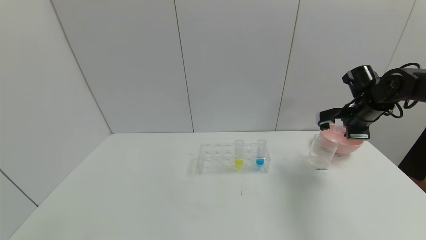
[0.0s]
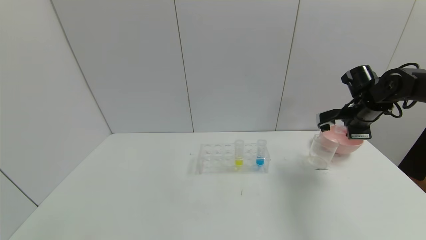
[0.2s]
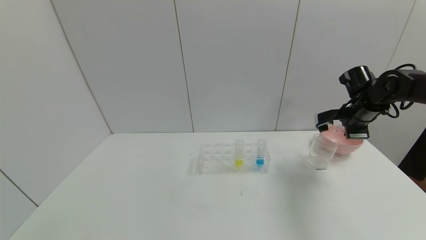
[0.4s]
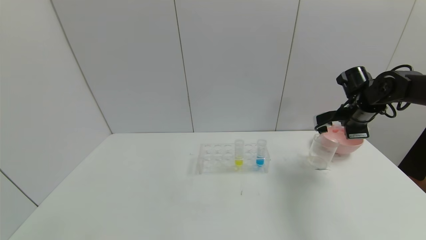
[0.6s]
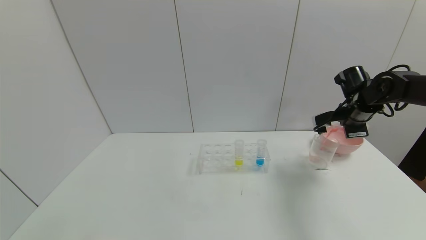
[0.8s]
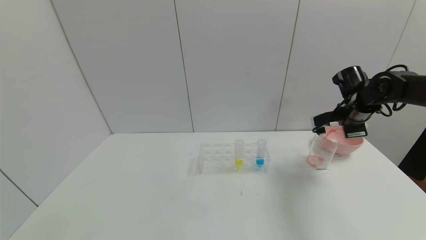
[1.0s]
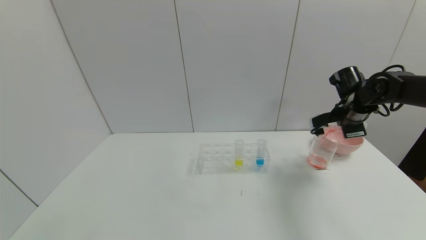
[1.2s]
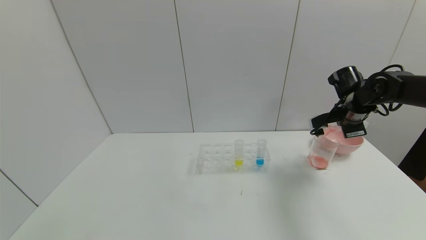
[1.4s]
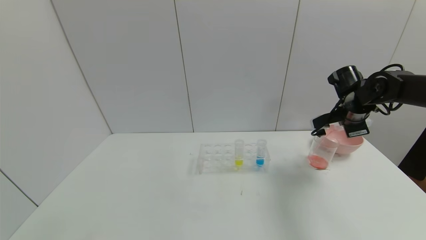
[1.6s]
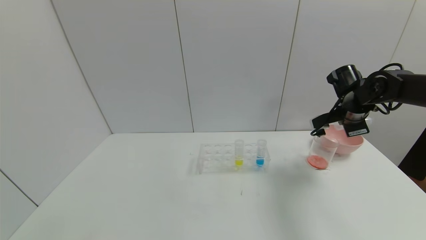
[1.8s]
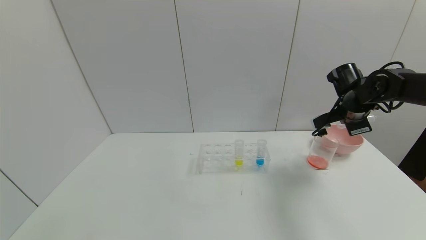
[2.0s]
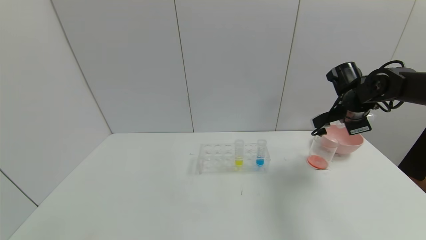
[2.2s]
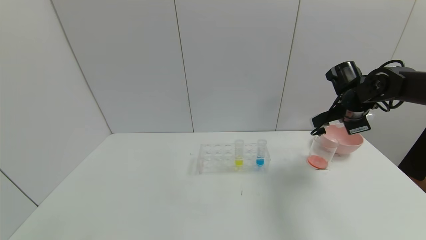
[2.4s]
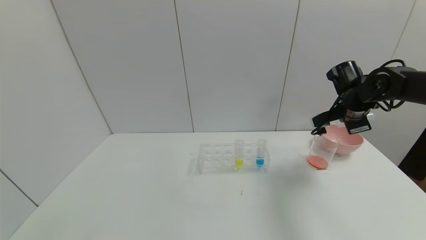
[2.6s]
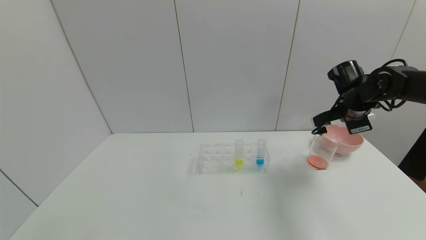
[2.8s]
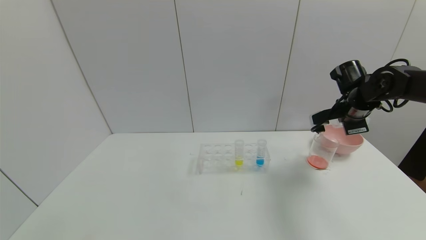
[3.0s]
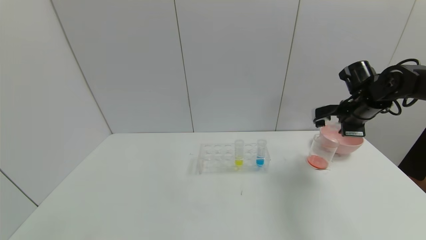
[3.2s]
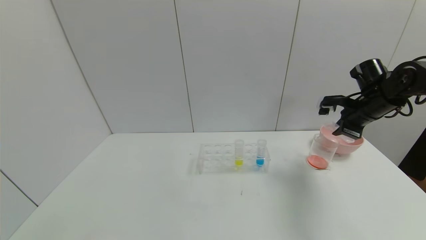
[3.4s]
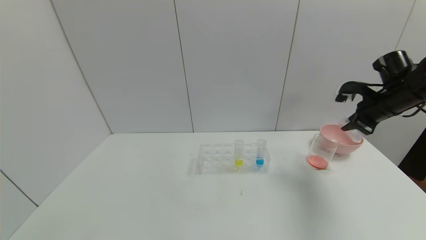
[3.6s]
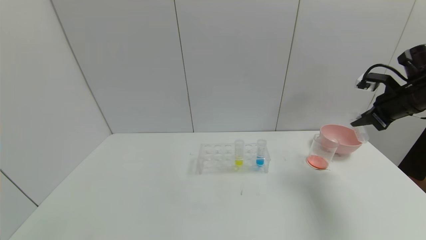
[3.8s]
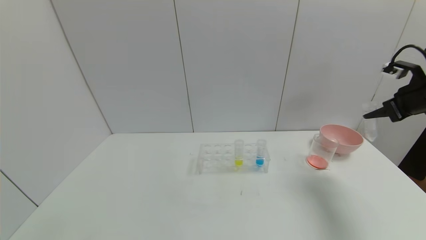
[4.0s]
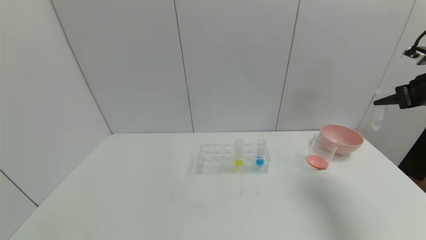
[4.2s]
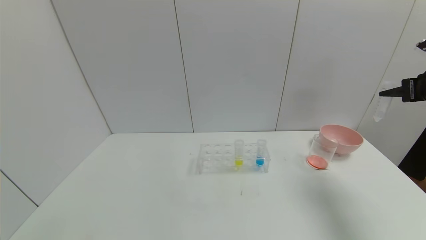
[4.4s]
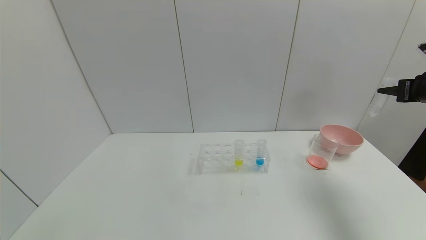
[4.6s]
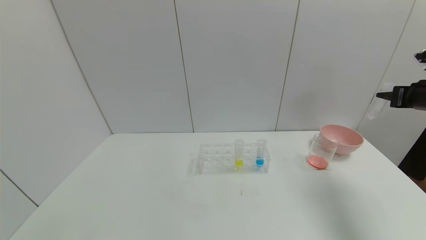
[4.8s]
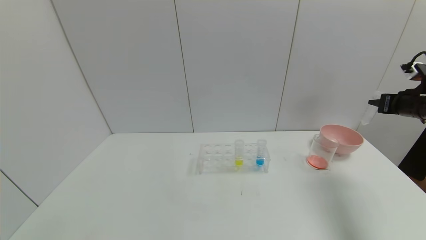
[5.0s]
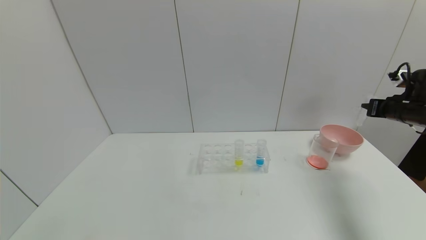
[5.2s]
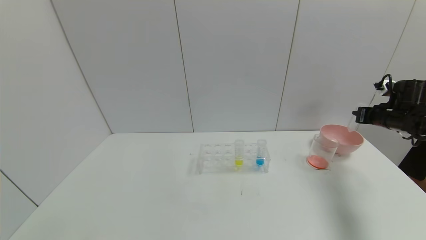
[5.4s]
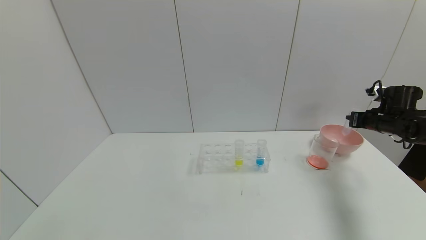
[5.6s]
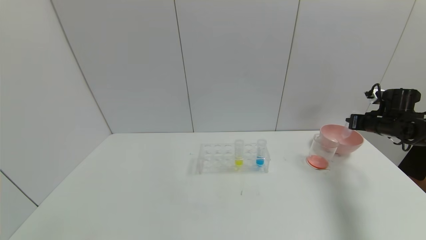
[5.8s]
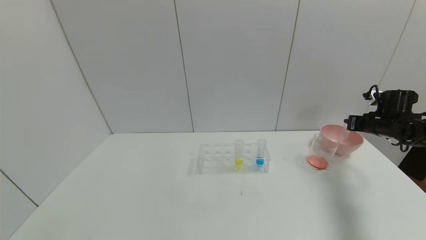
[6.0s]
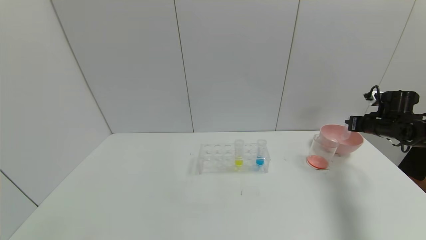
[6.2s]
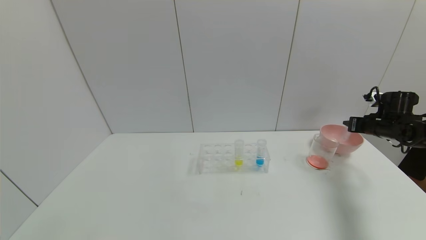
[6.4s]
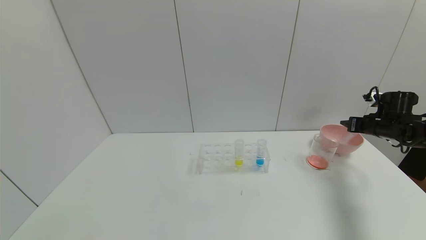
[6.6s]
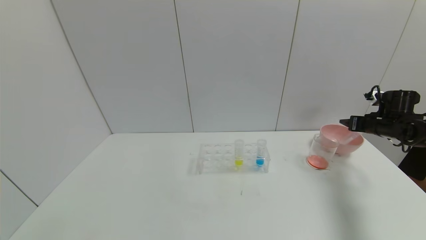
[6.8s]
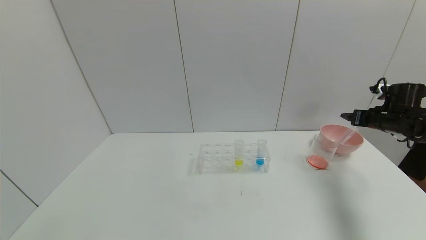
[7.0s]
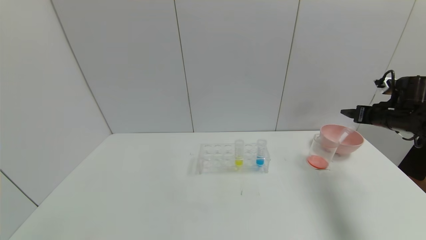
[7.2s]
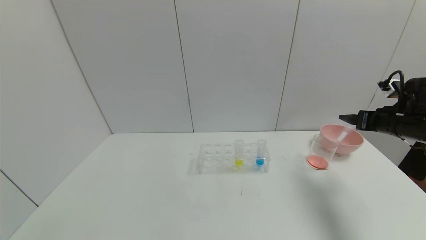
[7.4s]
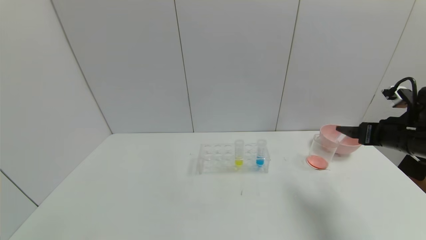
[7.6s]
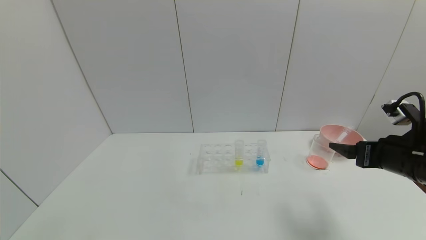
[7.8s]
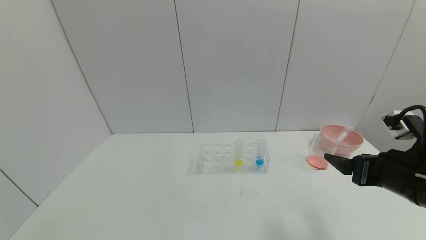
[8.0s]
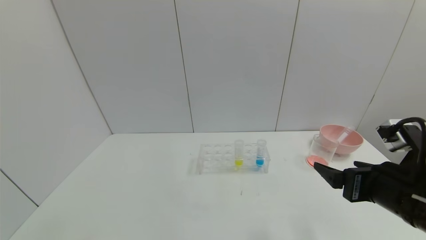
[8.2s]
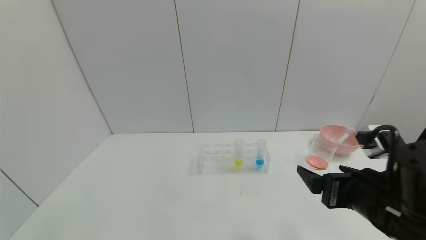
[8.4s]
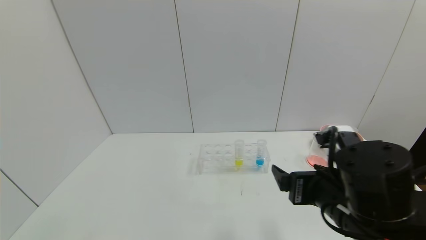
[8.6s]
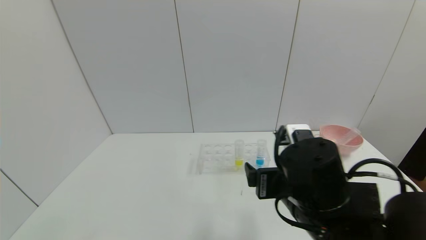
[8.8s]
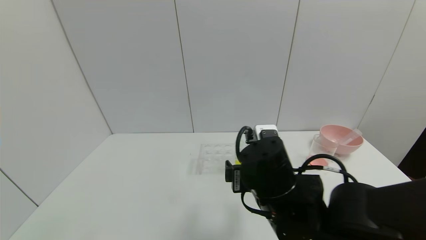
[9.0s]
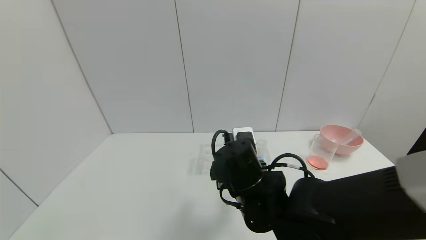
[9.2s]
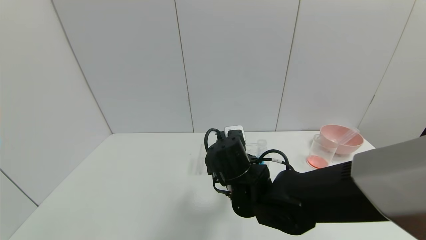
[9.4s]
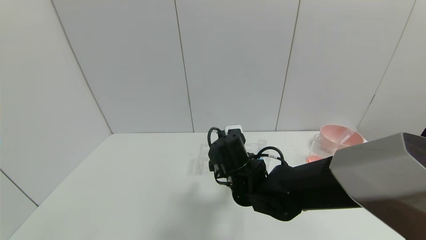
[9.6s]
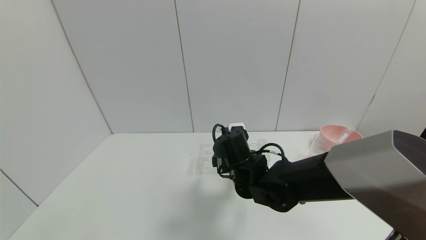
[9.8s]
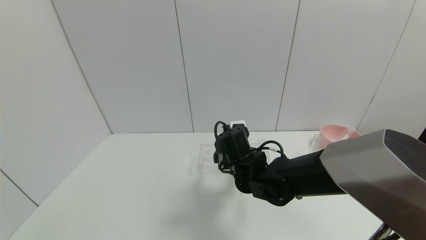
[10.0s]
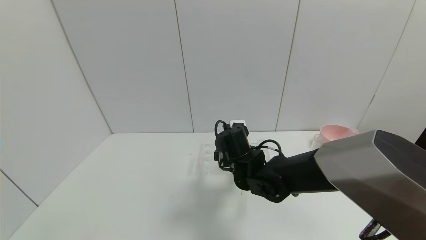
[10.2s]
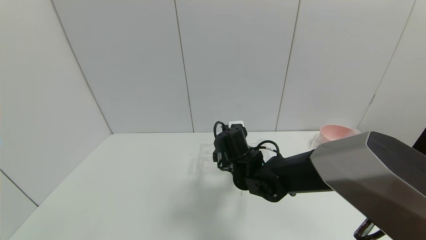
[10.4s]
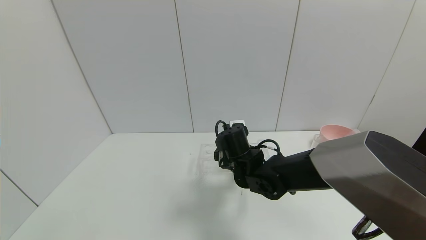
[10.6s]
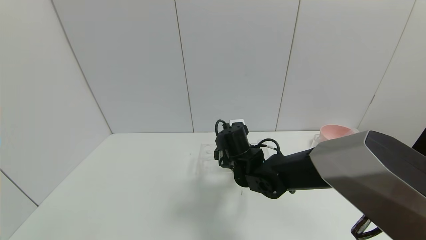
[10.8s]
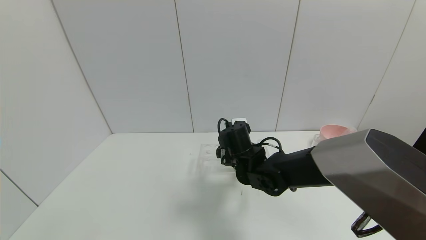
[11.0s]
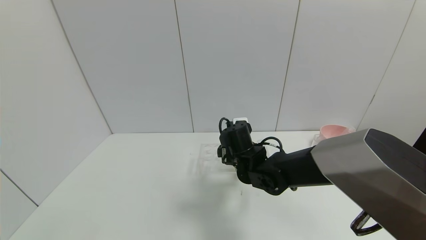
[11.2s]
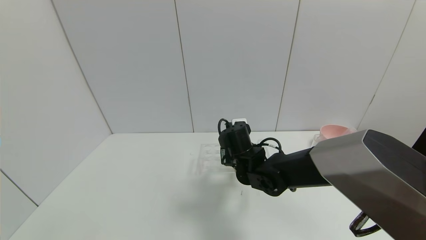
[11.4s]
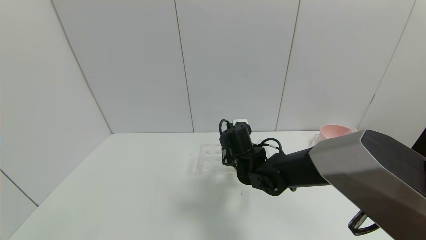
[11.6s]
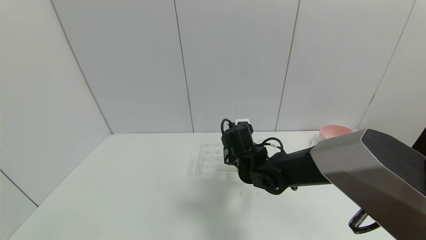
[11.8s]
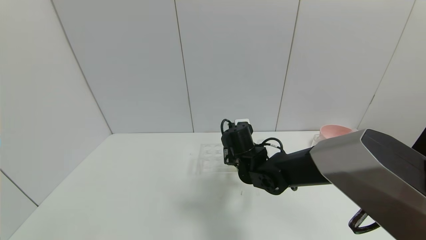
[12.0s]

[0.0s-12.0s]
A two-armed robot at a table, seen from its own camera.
Task of the whole recording: pick up the test tube with yellow pigment and the test tube with red pigment by grippers and pour them into the beaker.
Step, 0.0s to 5.2s: Pour the red reagent into the graduated cylinder with right gripper.
Step, 5.4s to 8.4s: Place the test tube into the bowl with right gripper.
0.0s to 1.6s: The grippers make only small movements.
1.6s to 3.0s: The grippers make only small movements.
3.0s to 4.4s: The right gripper travels to the right, backward and upward by some 15 cm.
4.4s to 6.0s: The right gripper is displaced downward and forward by roughly 20 cm.
6.0s to 7.6s: The right gripper goes about 15 cm backward and to the left, and opens its fingers.
7.6s to 9.0s: The right gripper travels to the left by some 30 cm.
9.0s to 10.4s: The right gripper shifts about 15 cm forward and downward.
10.4s to 12.0s: The right gripper closes.

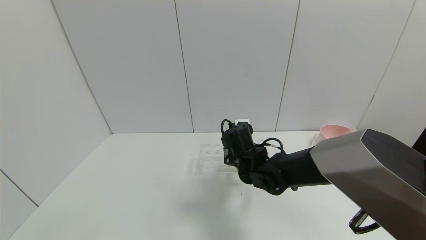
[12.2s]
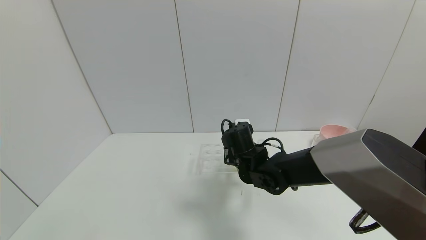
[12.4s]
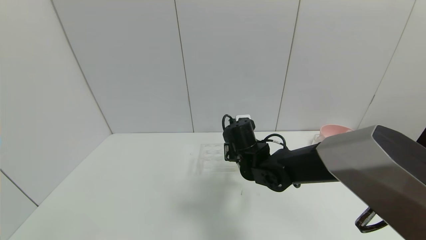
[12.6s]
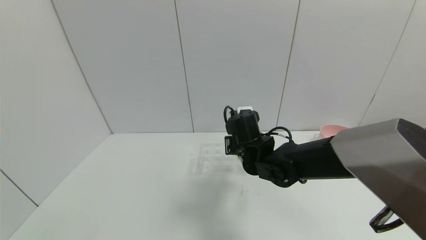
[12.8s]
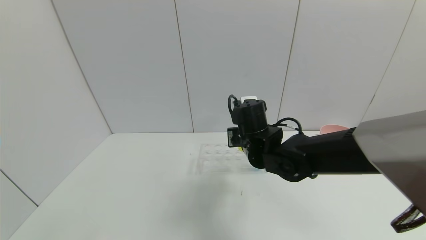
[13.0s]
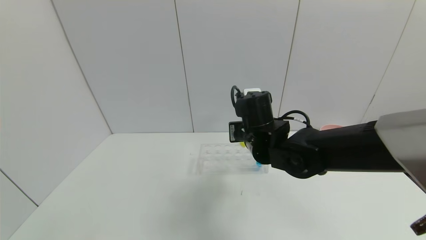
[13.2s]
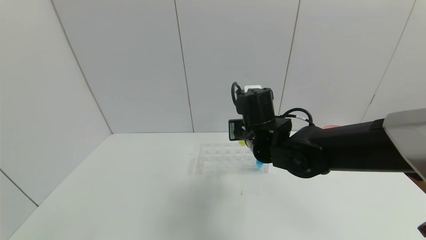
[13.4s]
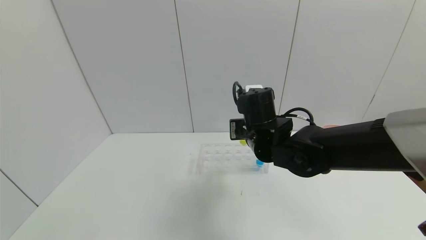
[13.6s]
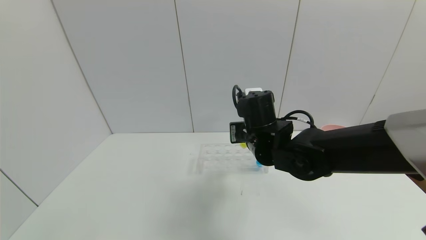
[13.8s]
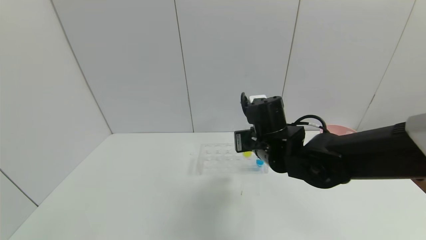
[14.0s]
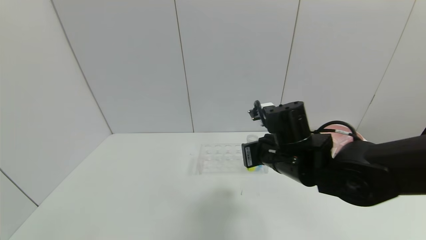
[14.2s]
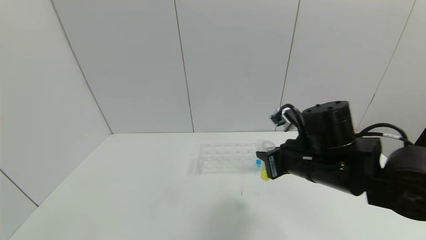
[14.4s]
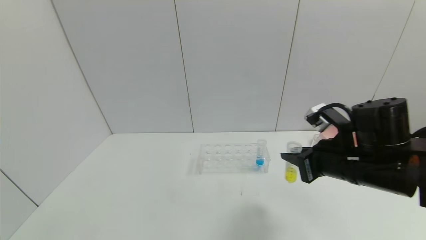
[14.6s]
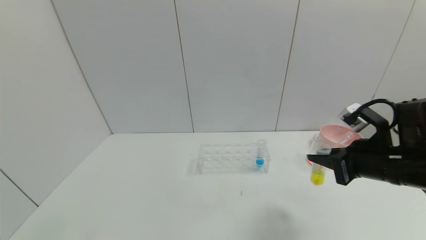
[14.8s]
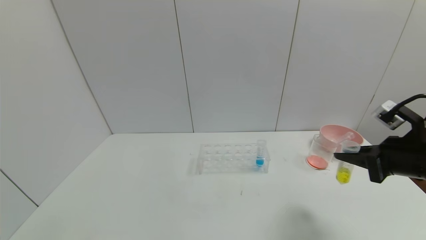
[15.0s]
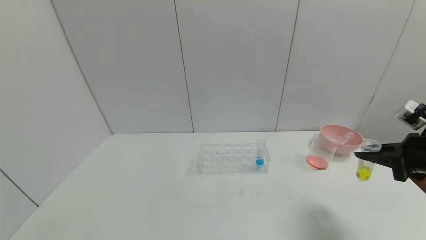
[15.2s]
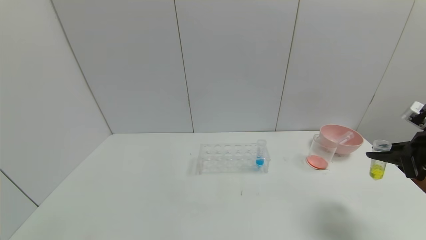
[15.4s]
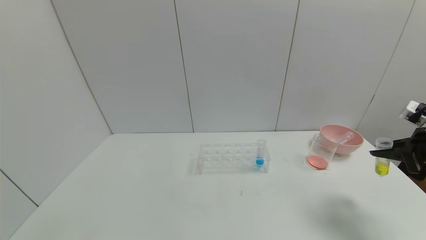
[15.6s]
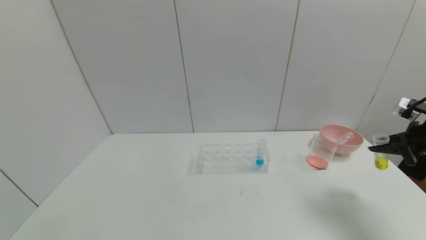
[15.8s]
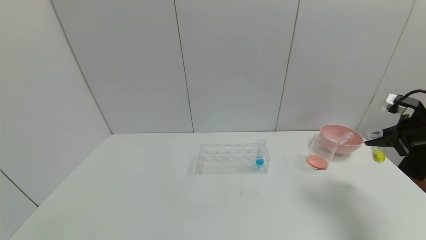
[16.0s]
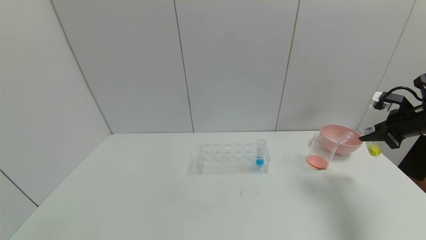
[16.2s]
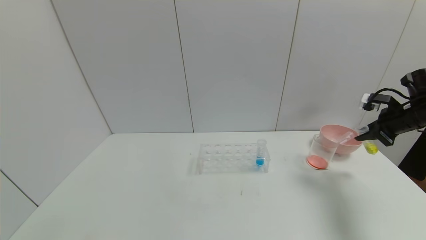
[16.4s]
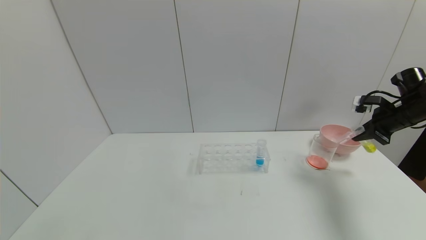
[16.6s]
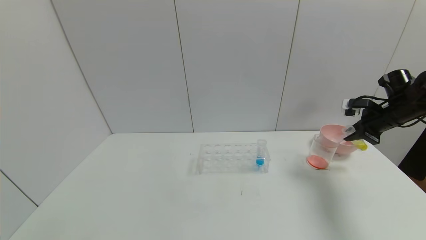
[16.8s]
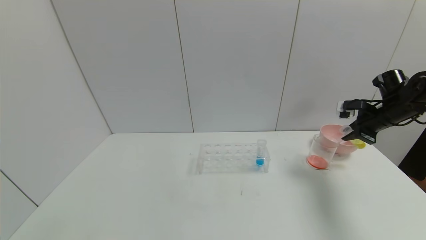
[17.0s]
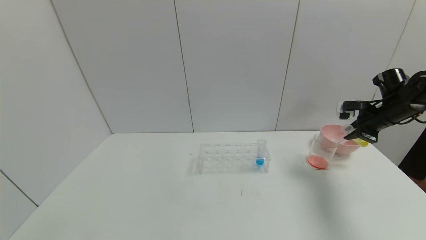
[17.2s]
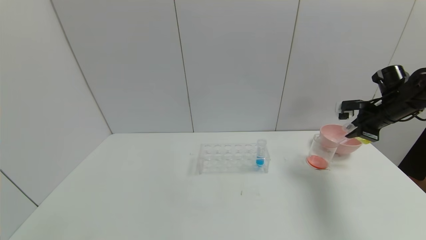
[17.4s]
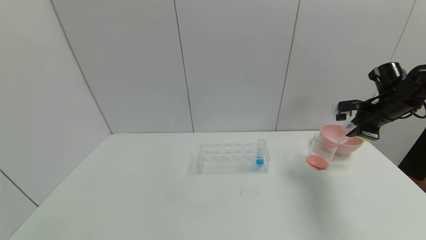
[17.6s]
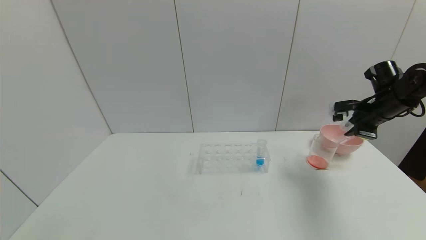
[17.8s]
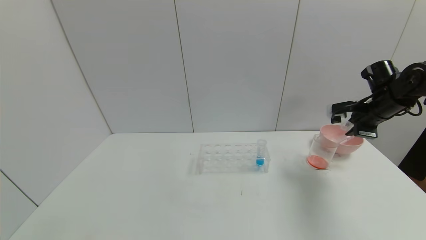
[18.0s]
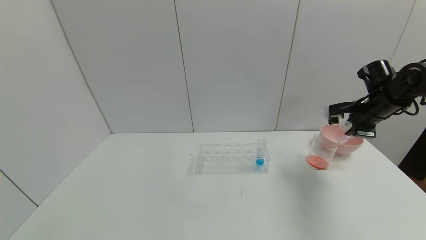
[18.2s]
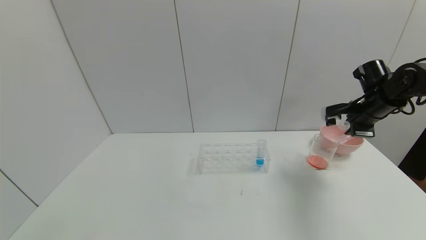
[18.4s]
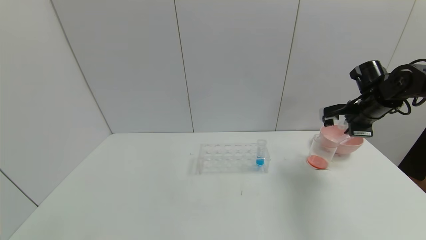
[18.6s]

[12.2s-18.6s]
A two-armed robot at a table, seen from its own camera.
Task of the whole recording: pick up the test tube with yellow pigment and the test tube with red pigment by grippers and pour them into the beaker.
Step, 12.2s to 14.8s: Pick up the test tube containing the yellow reagent with right gripper.
12.2s to 13.8s: The right gripper shifts some 10 cm upward.
13.8s to 15.4s: The right gripper goes roughly 35 cm to the right.
15.4s to 17.0s: The right gripper shifts roughly 15 cm forward.
17.0s to 18.6s: The right gripper is displaced to the left by roughly 5 cm.
